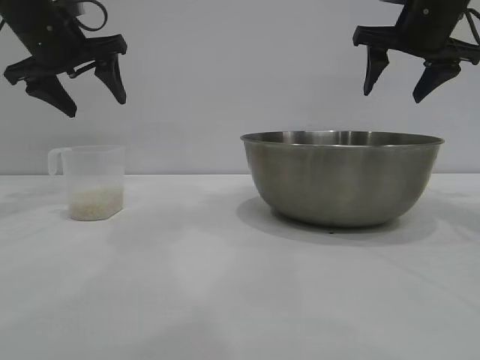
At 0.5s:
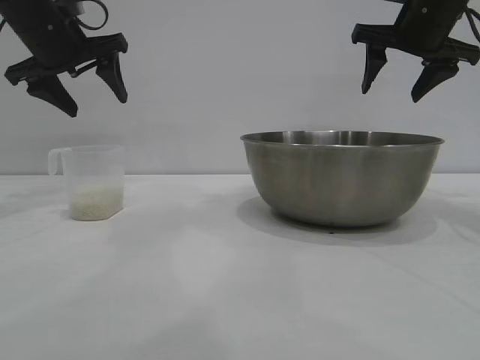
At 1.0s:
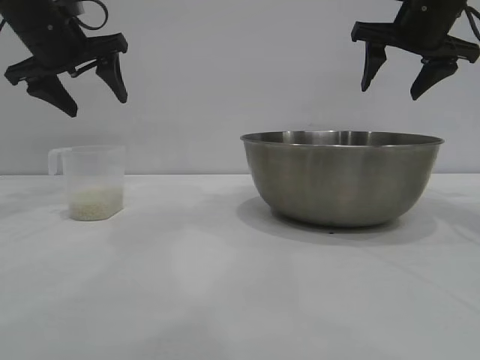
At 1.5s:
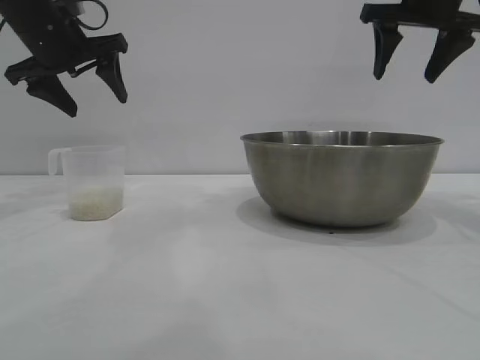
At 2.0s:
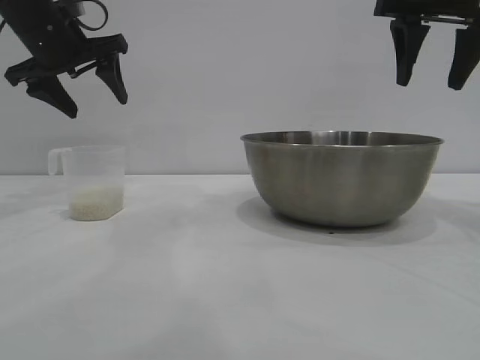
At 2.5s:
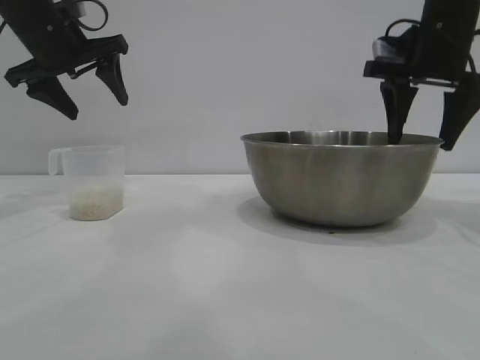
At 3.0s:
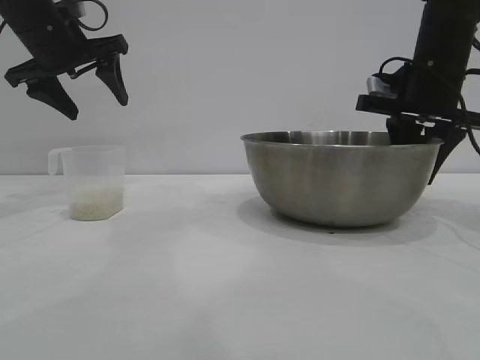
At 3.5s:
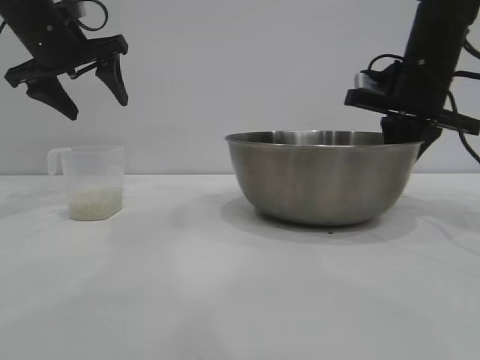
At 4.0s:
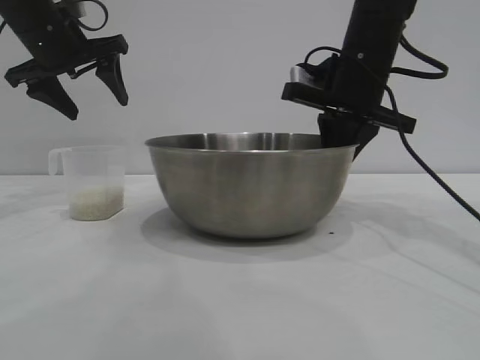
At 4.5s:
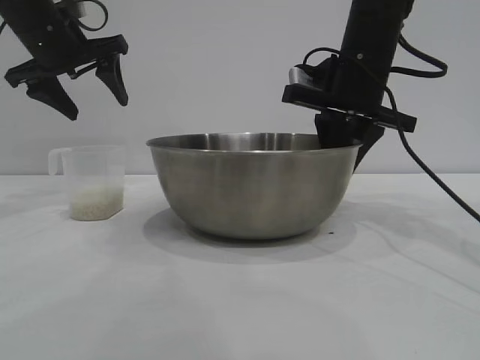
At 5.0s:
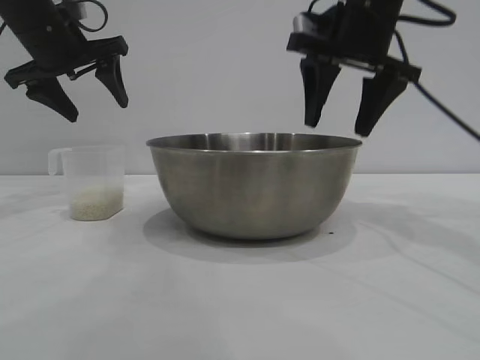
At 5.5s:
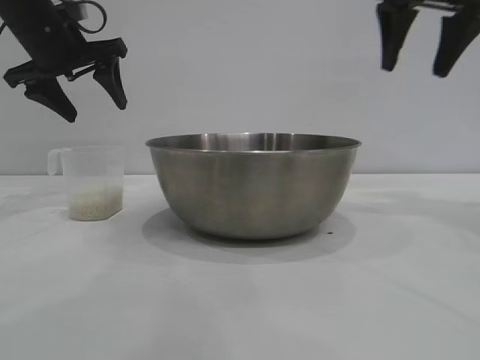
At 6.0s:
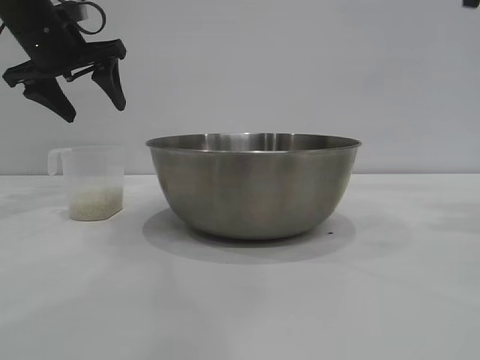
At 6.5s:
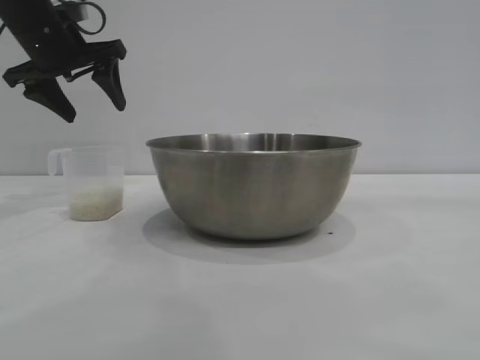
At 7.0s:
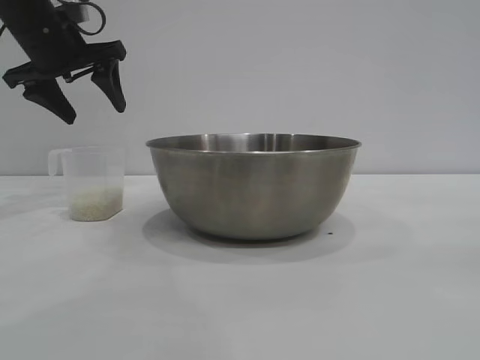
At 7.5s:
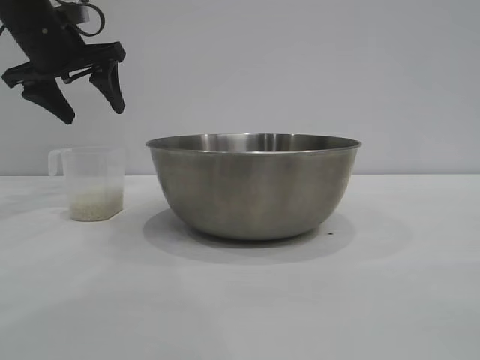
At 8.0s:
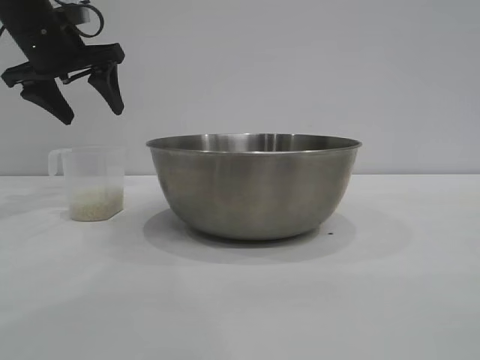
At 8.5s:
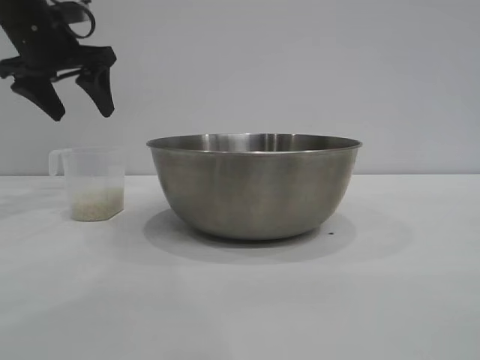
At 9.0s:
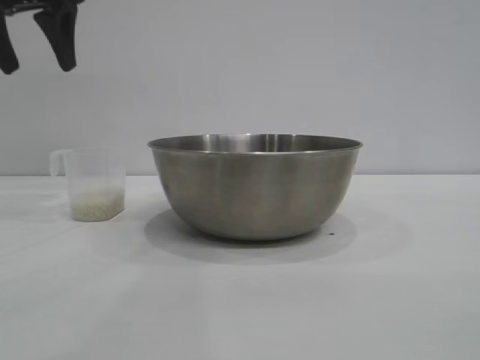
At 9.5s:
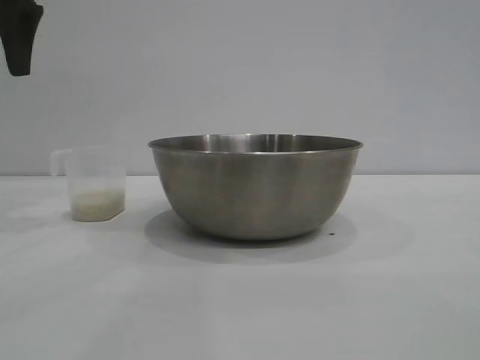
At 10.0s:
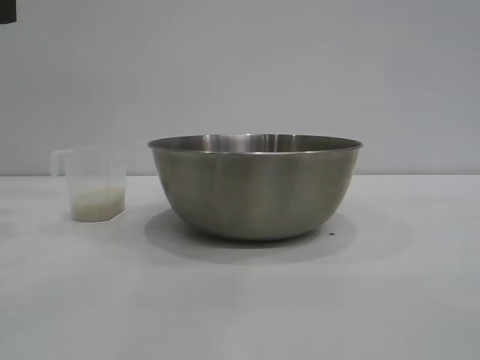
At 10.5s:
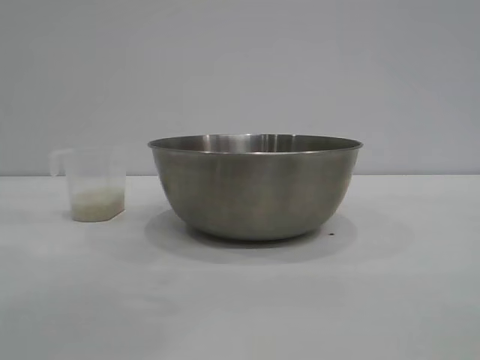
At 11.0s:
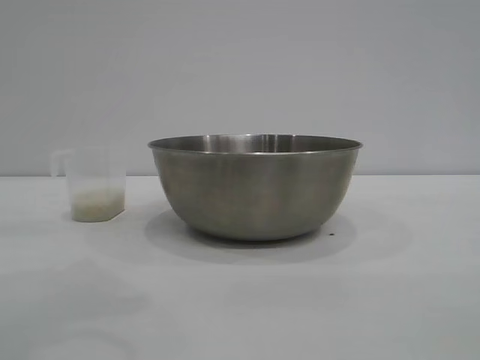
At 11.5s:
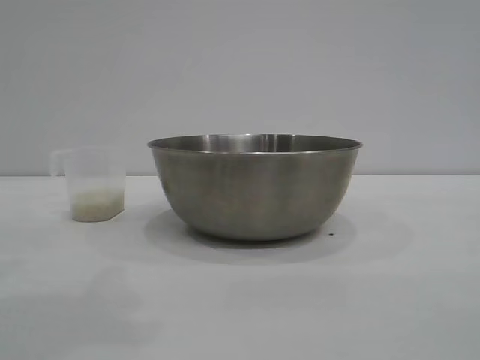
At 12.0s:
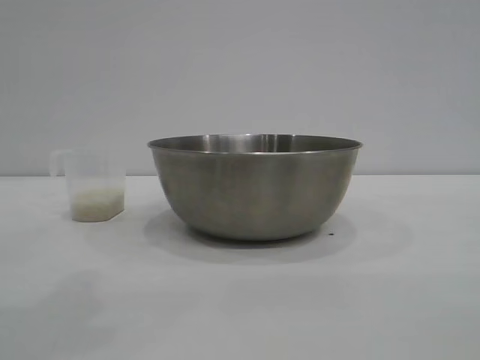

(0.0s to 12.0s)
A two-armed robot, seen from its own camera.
Task of the whole recording: the right gripper grasp the rice container and place it in the center of the table, the left gripper grasp the rice scoop and pour the rice into the rice container.
Step, 0.0s - 4.5s: Move the bowl to the center of view with the right gripper.

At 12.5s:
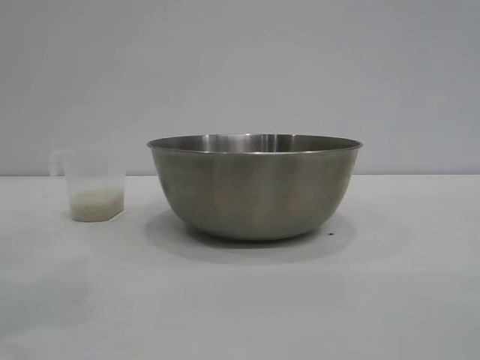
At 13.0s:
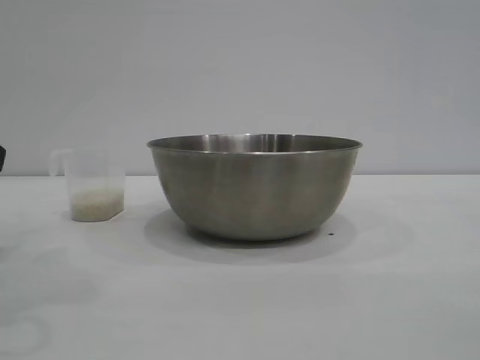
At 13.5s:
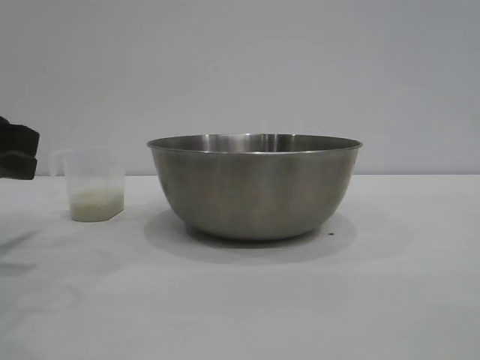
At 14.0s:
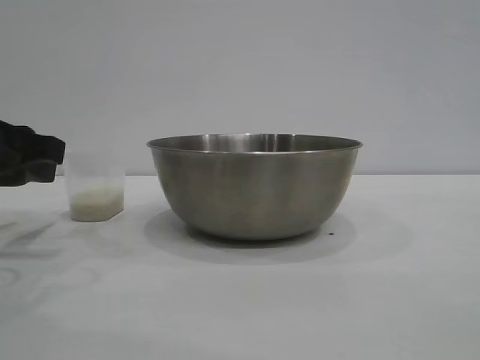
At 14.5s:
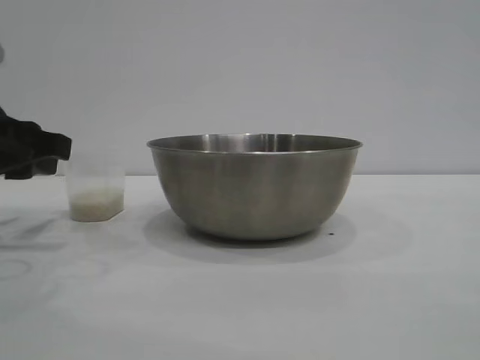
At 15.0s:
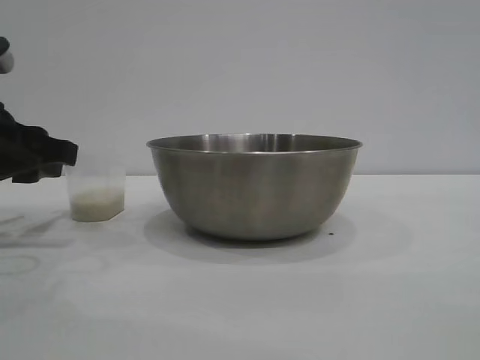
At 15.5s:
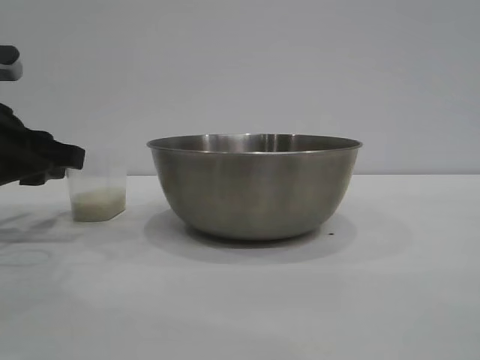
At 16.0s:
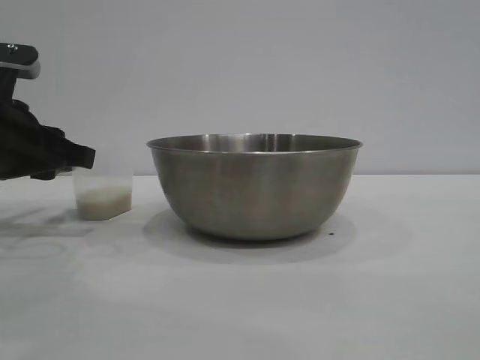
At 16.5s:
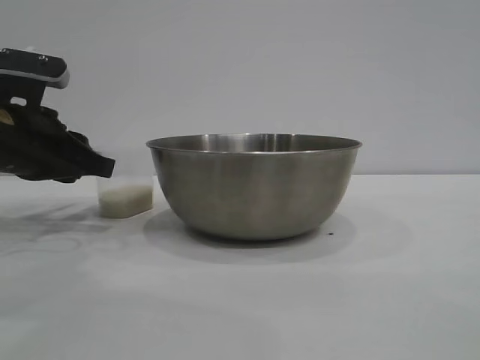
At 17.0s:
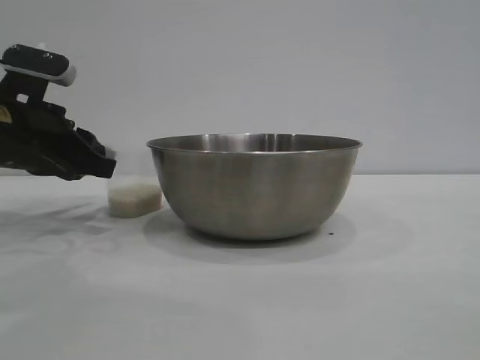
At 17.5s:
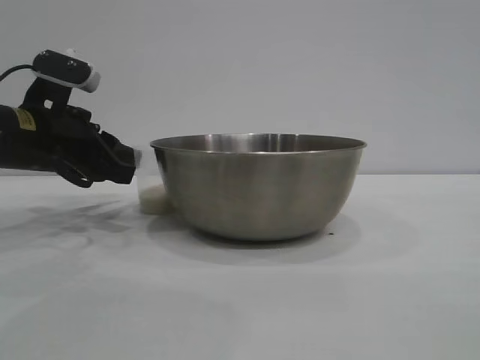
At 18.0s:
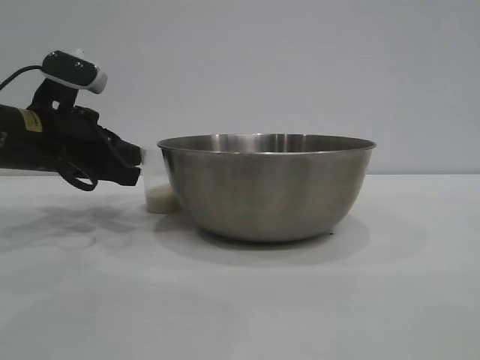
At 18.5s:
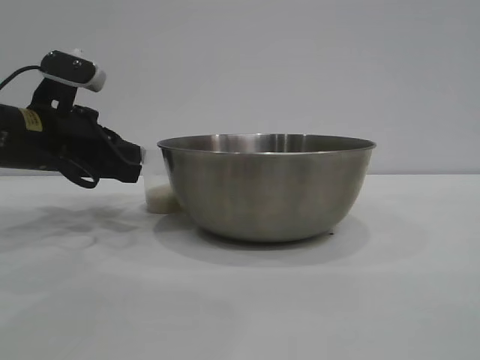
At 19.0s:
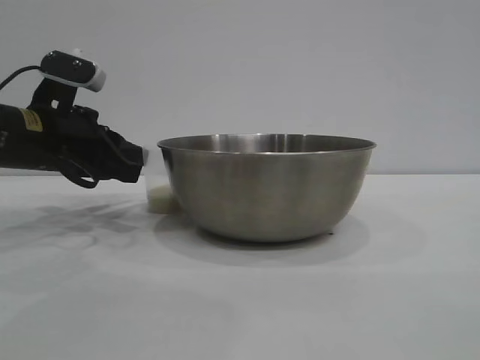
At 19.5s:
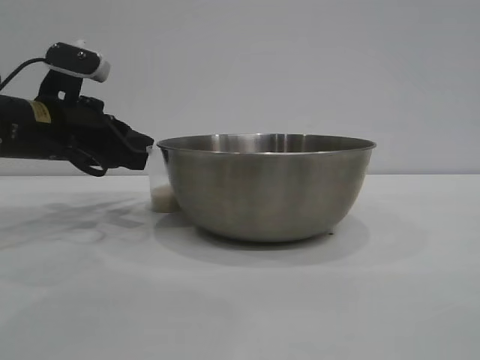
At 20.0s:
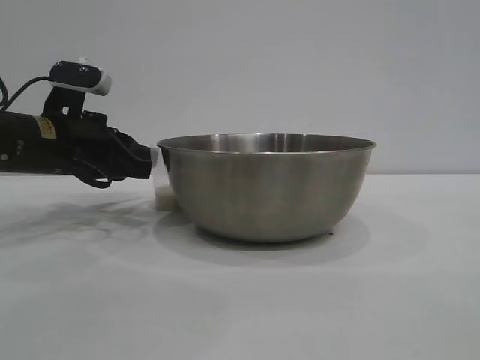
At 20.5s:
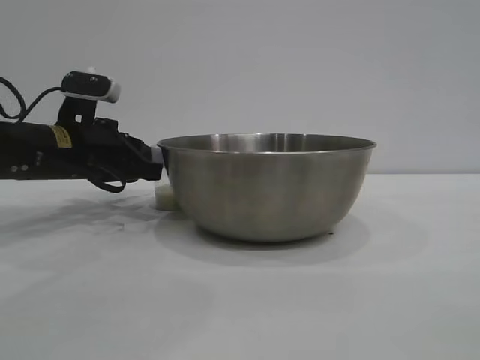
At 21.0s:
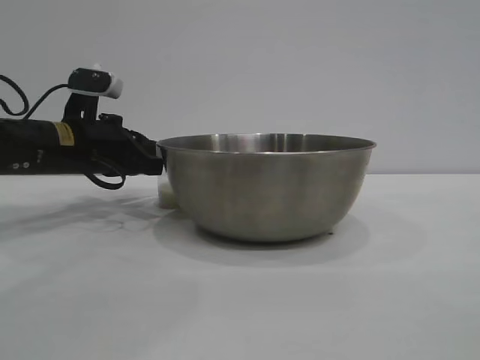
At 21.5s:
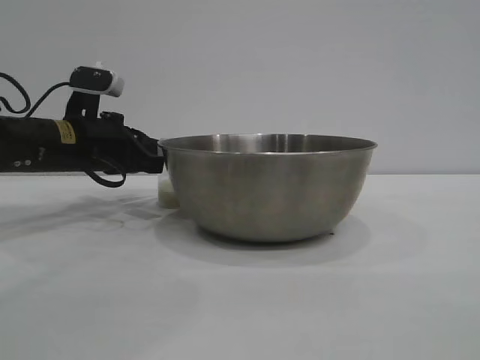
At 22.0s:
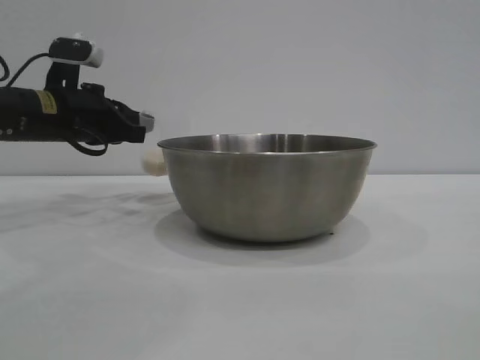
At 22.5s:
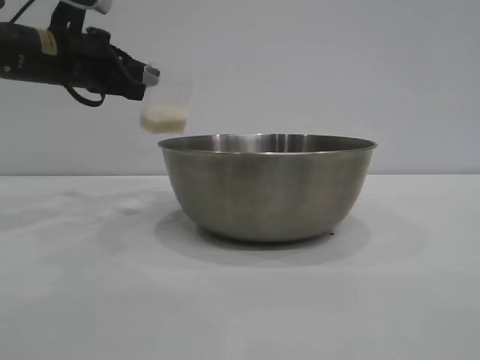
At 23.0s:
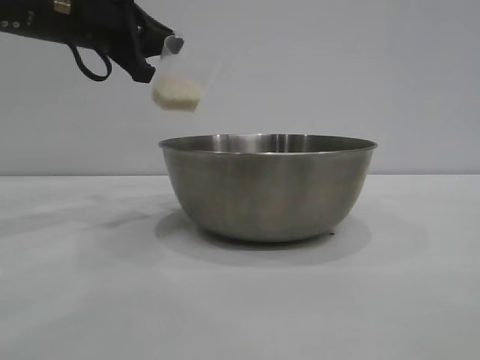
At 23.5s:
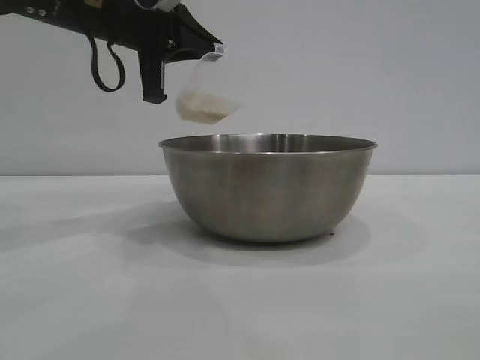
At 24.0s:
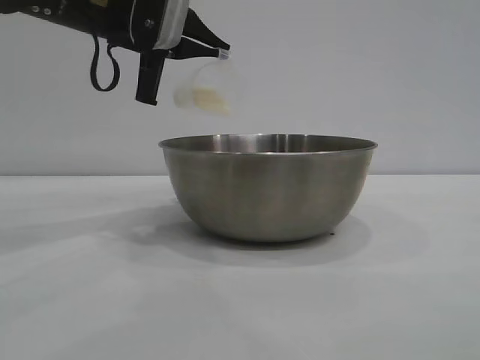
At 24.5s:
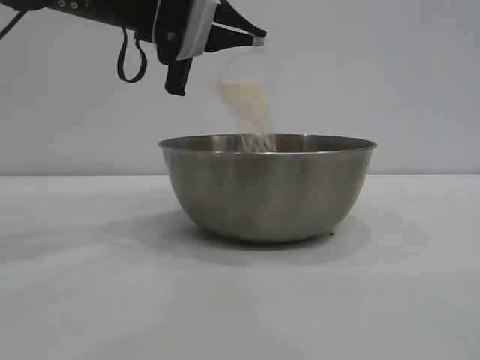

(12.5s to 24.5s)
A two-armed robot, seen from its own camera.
Task of the whole recording: the right gripper grasp the rice container and place it in the center of the table, the left gripper grasp the rice scoop and pour the rice into the rice container.
Step, 12.5s - 22.5s: Pick up the cup with rice in it with the left gripper.

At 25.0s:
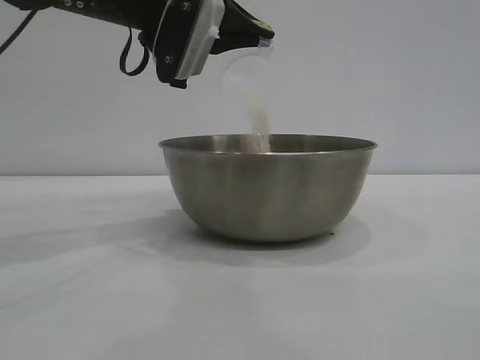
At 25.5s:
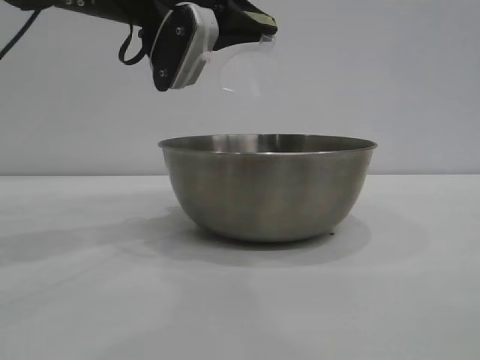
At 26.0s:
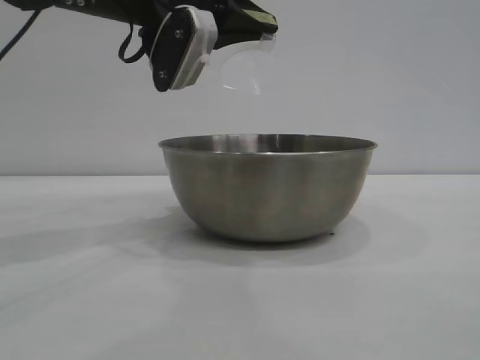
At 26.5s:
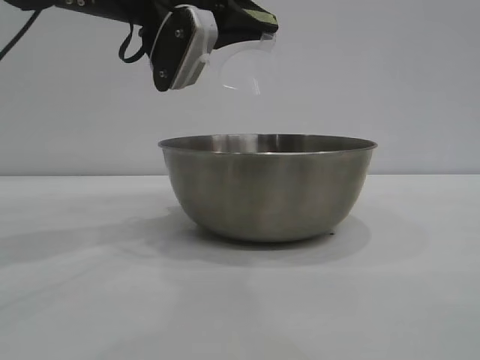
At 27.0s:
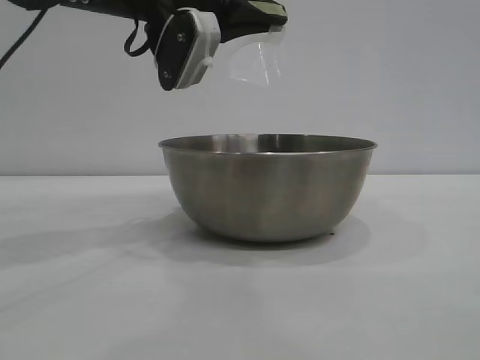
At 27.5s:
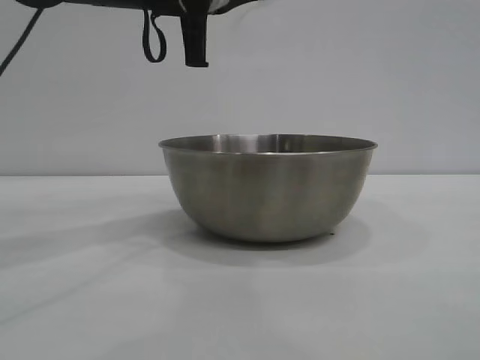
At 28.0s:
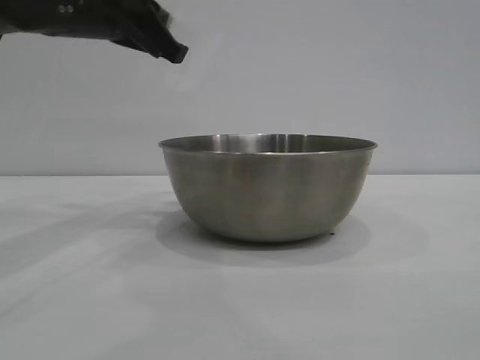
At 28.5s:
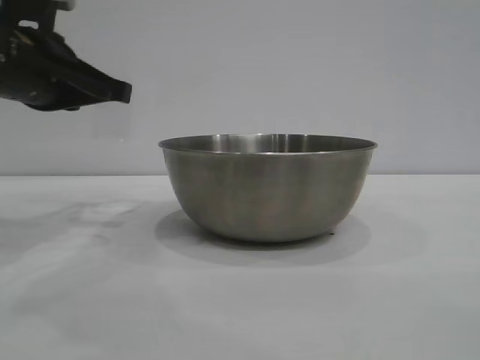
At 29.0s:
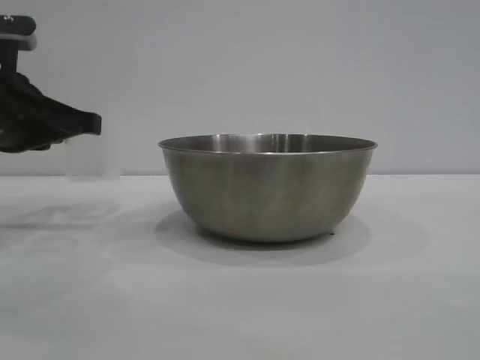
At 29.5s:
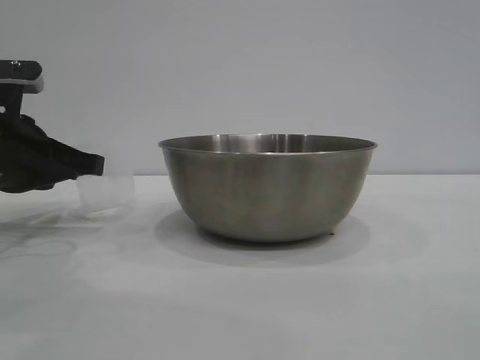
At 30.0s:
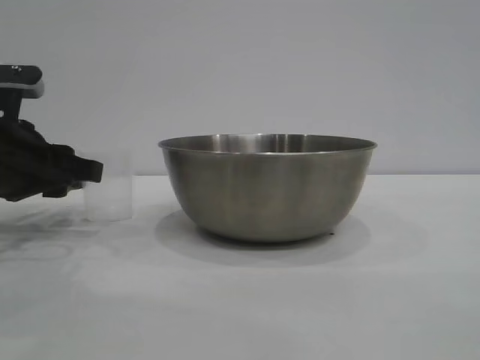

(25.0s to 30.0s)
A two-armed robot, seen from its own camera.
Task of the whole recording: the right gripper grasp the rice container and place it in the center of the table, the left gripper grasp the rice scoop and pour the rice into the rice container.
Step, 25.0s - 27.0s: Pour the rice from the cup into the bowl with the left gripper.
